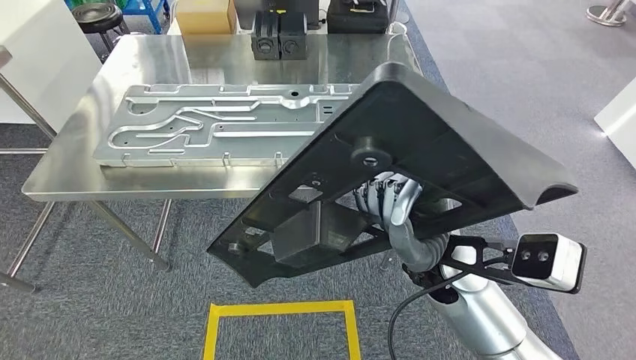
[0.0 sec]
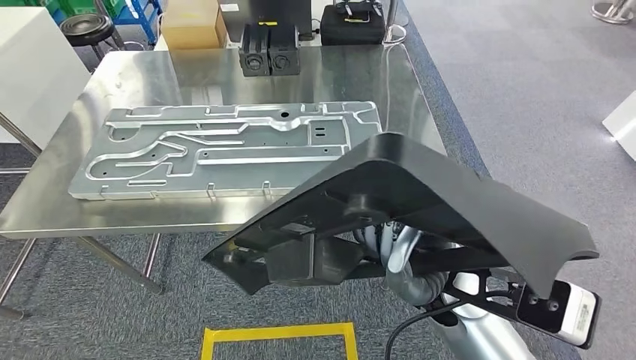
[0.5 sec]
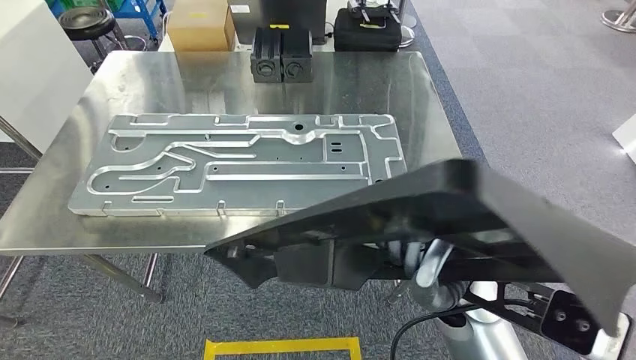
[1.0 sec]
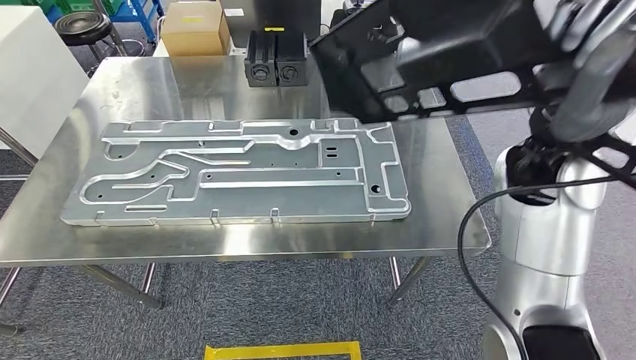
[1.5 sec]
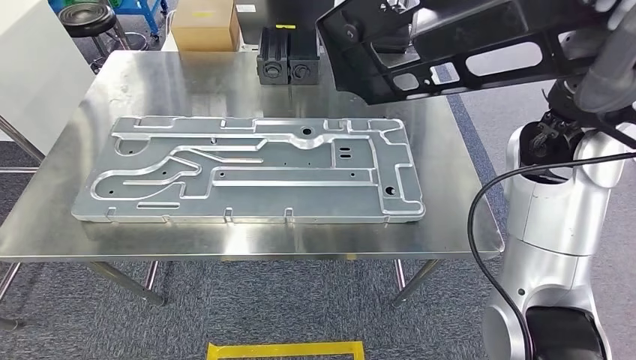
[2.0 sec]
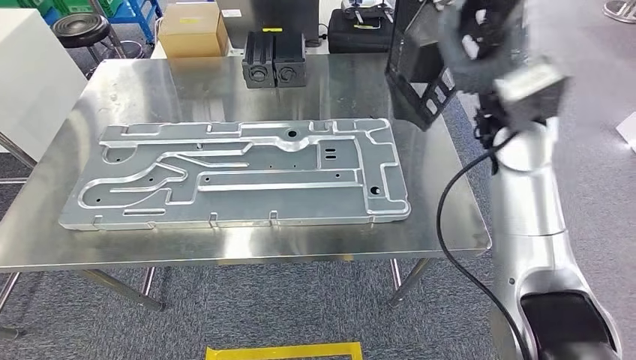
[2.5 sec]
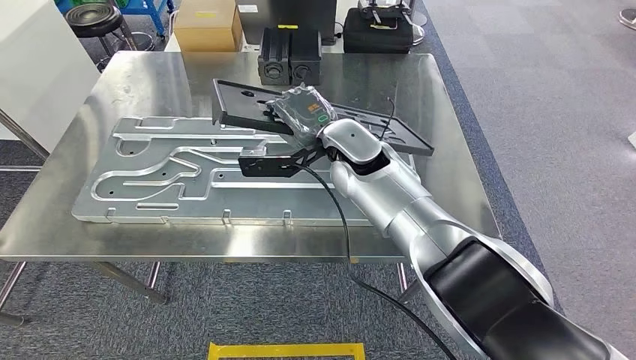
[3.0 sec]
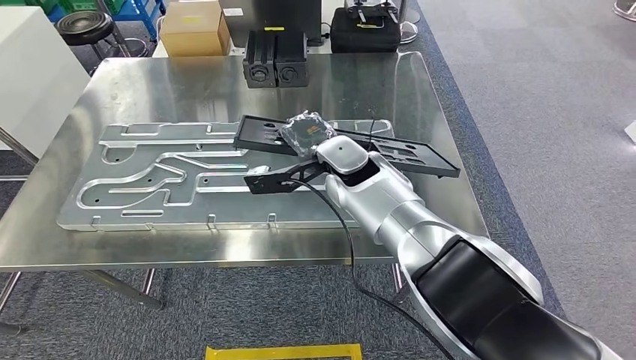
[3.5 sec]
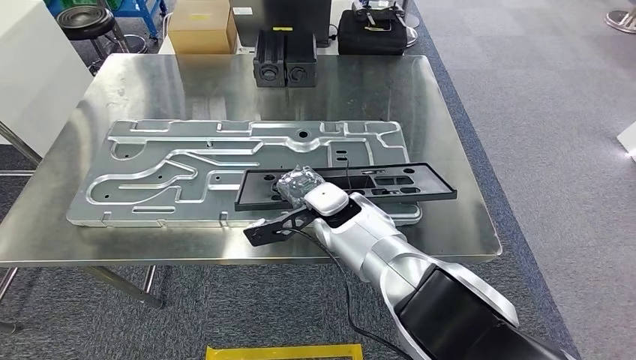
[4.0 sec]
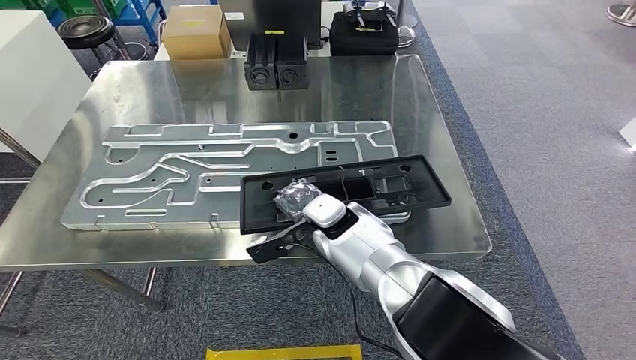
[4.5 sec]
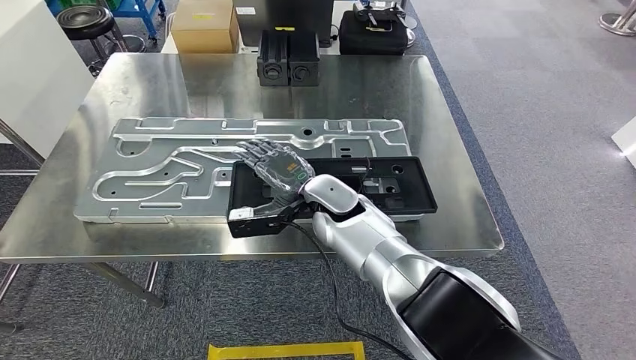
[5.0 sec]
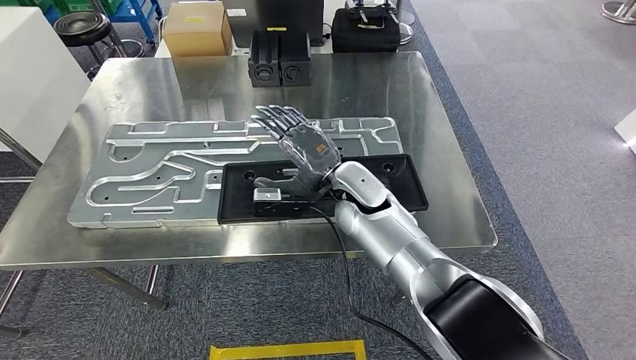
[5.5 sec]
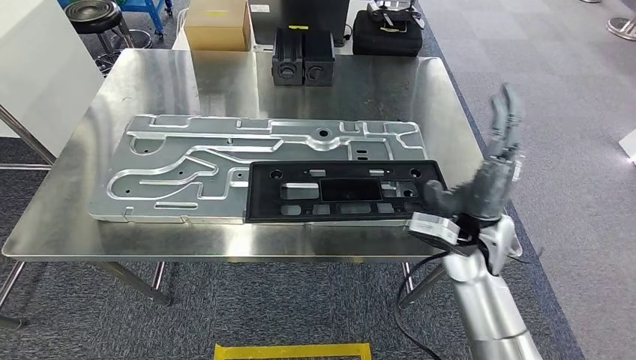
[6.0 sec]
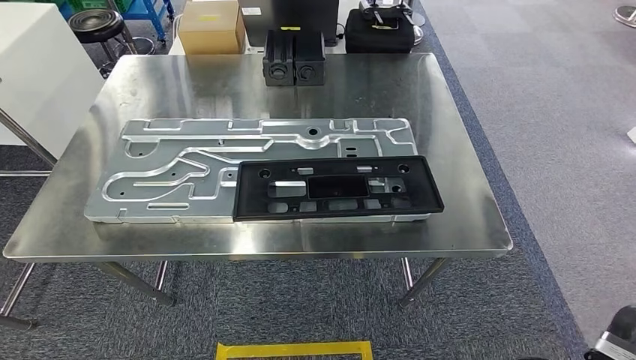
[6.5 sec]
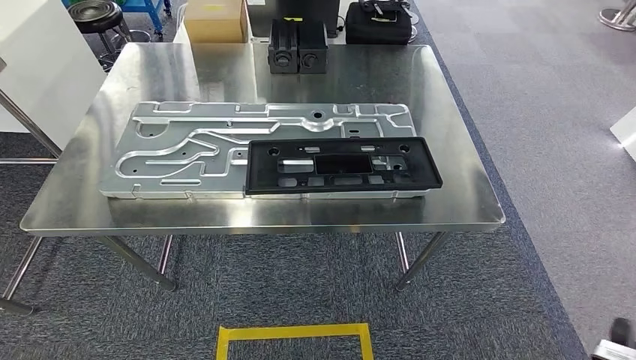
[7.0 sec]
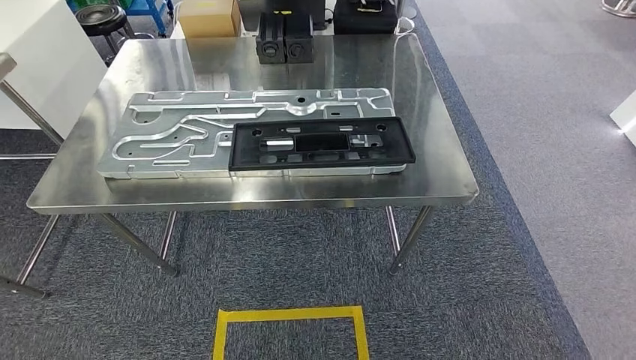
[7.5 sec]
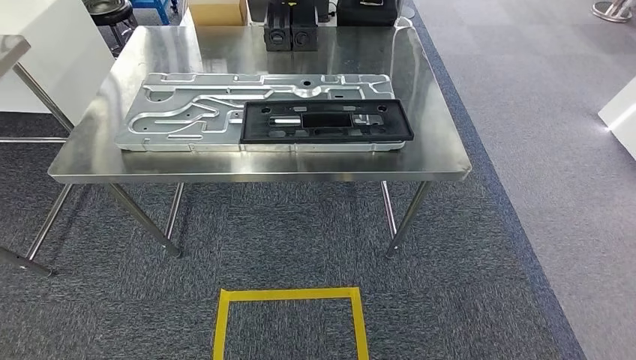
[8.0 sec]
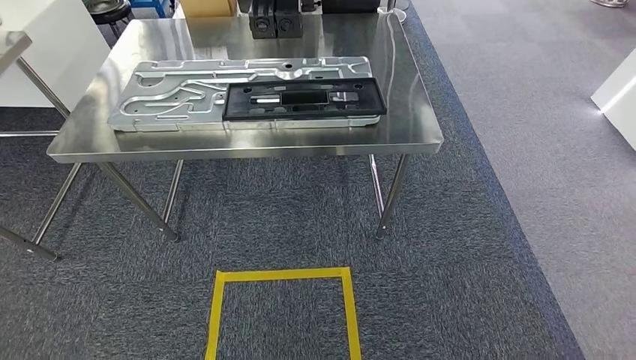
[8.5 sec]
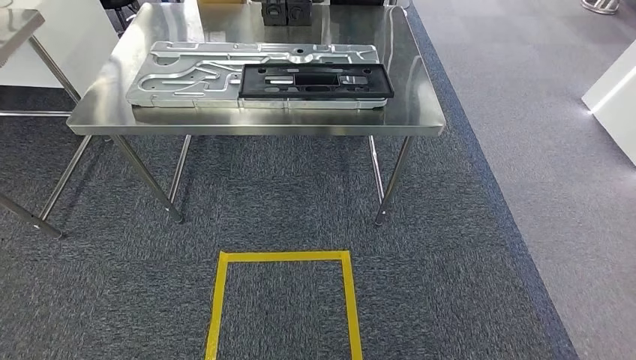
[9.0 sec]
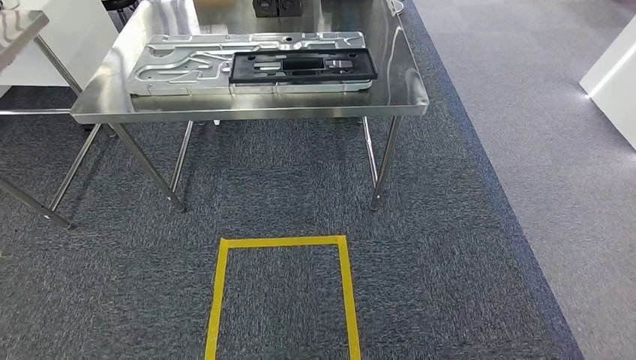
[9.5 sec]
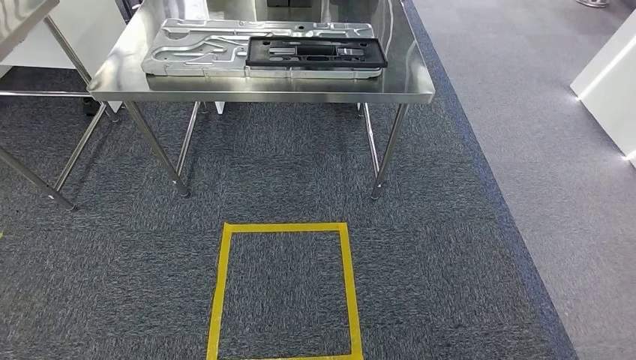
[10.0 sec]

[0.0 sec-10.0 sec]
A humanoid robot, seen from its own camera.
Step, 0.0 sec to 2.5 sec: Move the large material to the workbench.
Step, 3.0 sec to 6.0 sec: Insert the large material into the corresponding slot on the workbench.
Step, 6.5 sec to 10.0 sec: Move to the initial position of the shelf.
